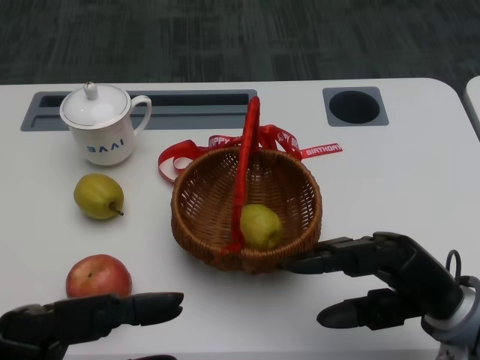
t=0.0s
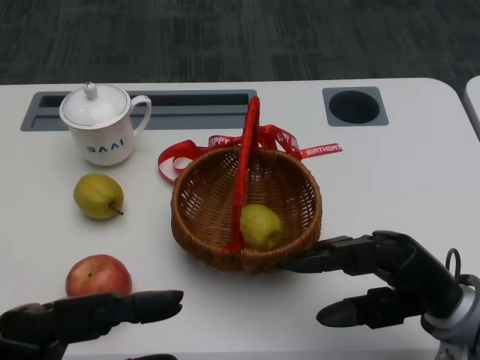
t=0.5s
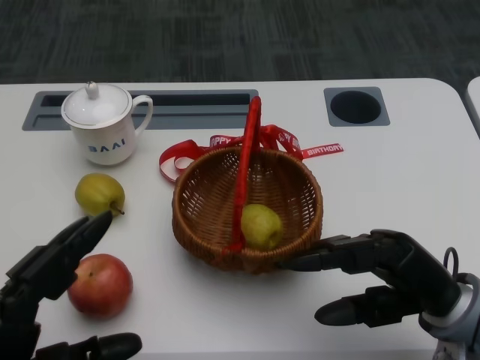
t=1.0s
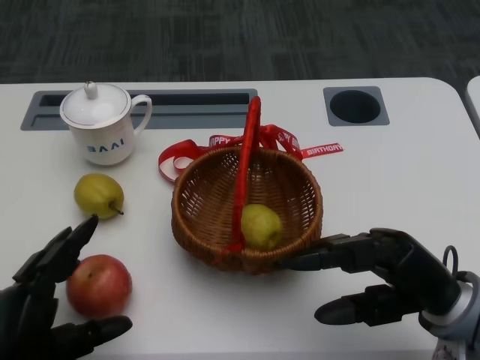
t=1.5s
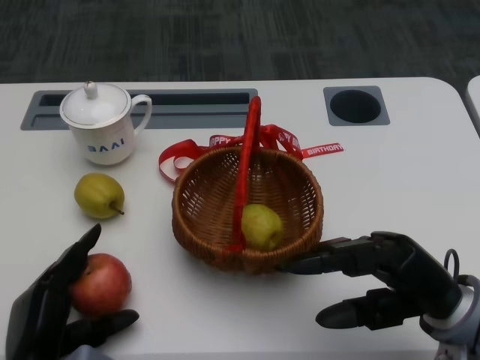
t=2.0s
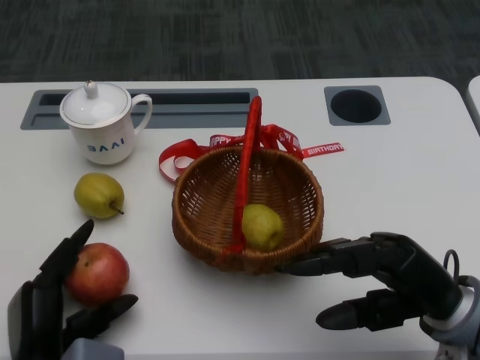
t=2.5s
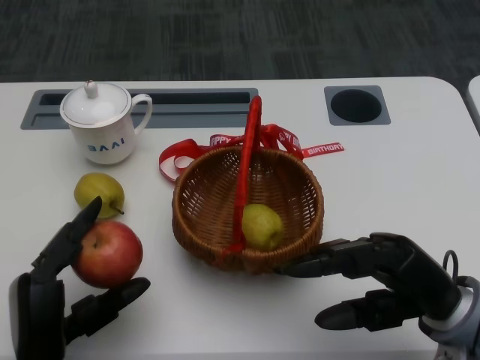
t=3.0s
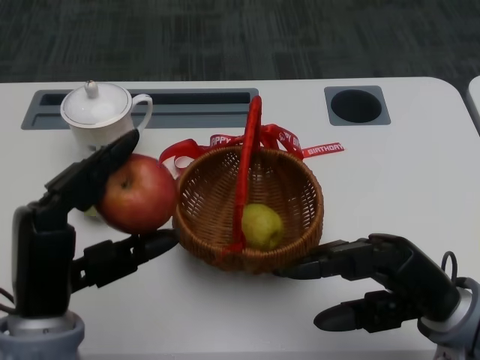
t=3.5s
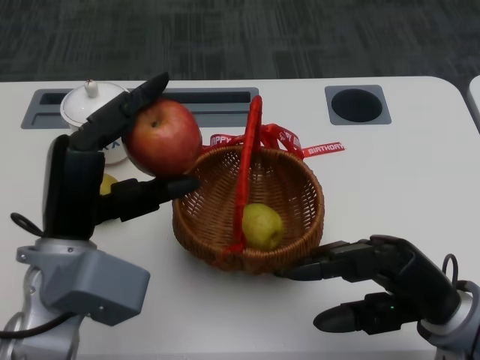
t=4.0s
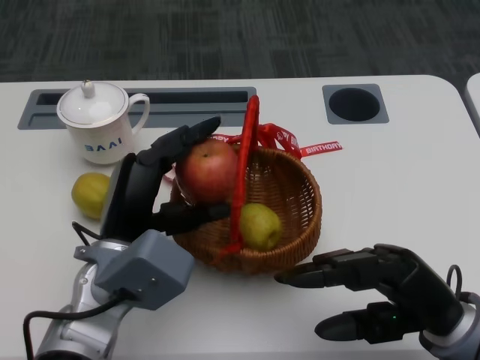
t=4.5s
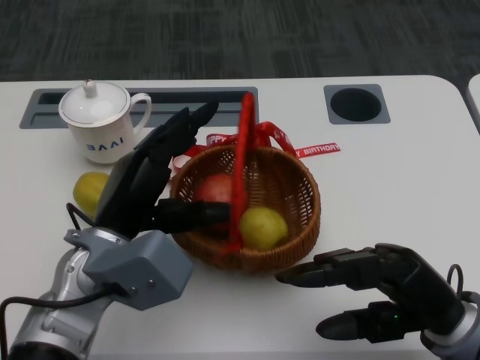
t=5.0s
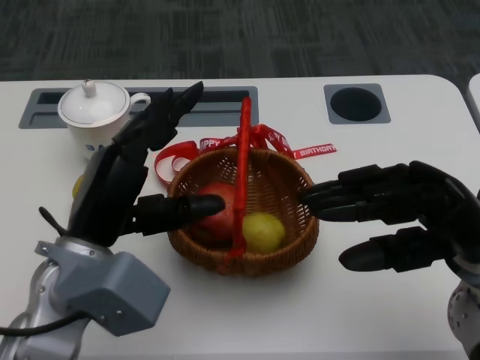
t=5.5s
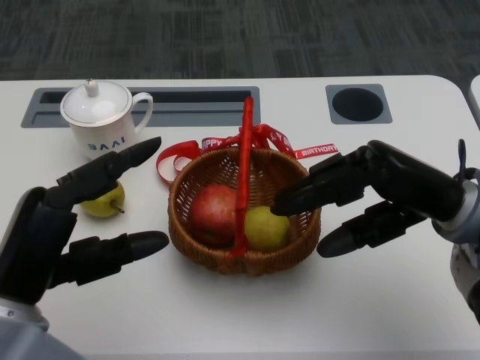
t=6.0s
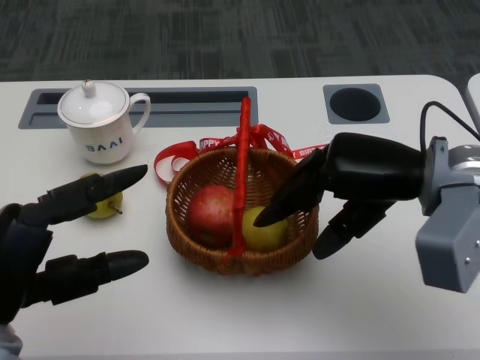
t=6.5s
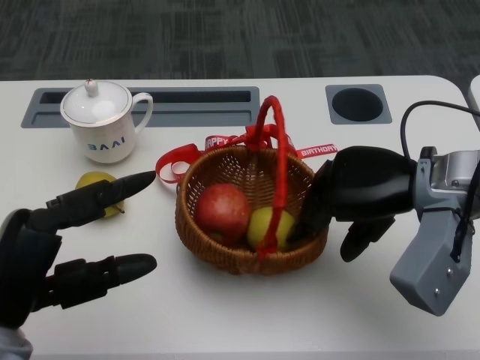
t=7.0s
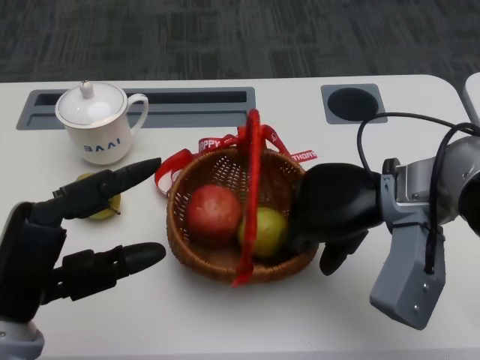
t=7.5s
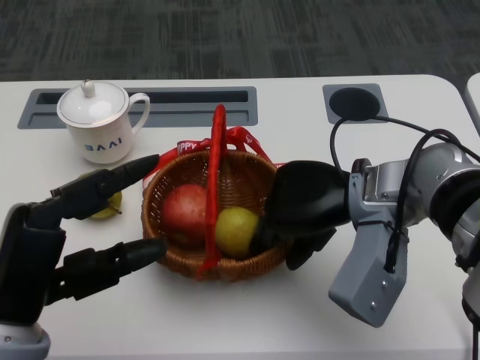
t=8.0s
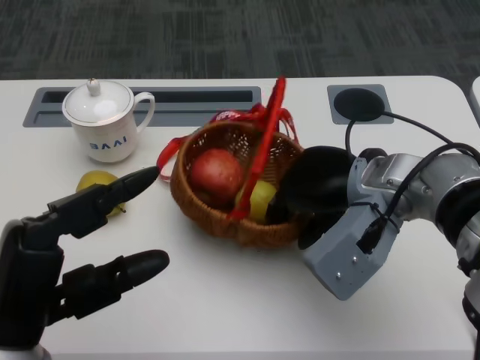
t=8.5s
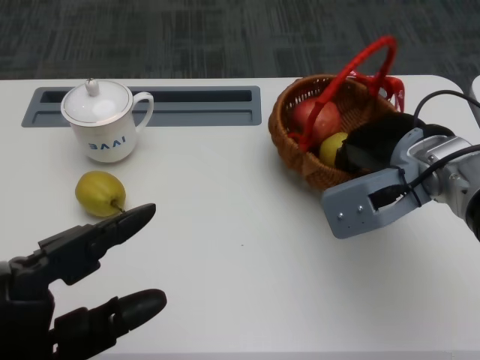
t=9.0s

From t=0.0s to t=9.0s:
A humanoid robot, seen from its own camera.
Step, from t=0.5s to t=2.0s: Grasp the apple with the left gripper.
Step, from t=2.5s to t=4.0s: Place the apple into the basket with the left gripper.
Step, from t=4.5s to t=6.0s: Grasp the basket with the right gripper.
Step, from t=6.5s to t=8.0s: Move the basket to the front of the table with the right gripper.
From t=2.0s to t=4.5s: The left hand moves upward, forward and to the right, roughly 15 cm.
From t=4.5s to t=7.0s: The right hand is displaced forward and upward by some 15 cm; the left hand goes roughly 15 cm backward and to the left.

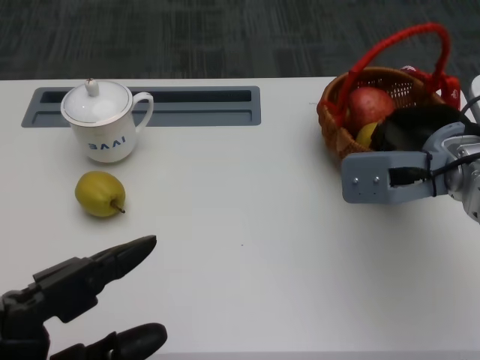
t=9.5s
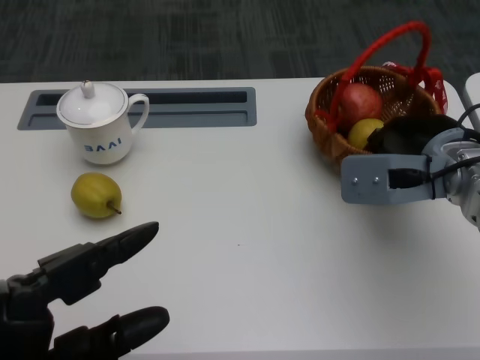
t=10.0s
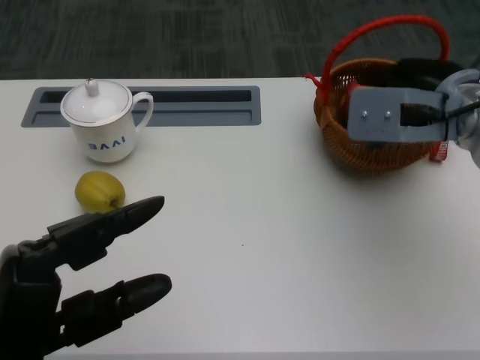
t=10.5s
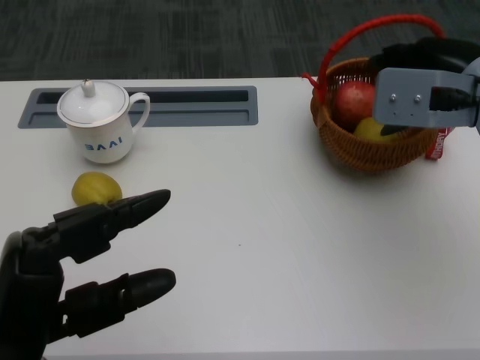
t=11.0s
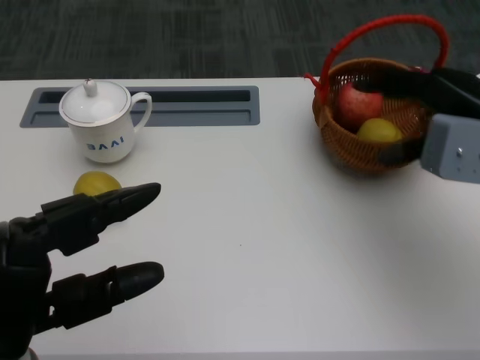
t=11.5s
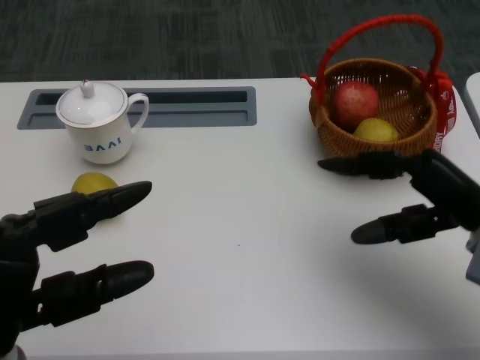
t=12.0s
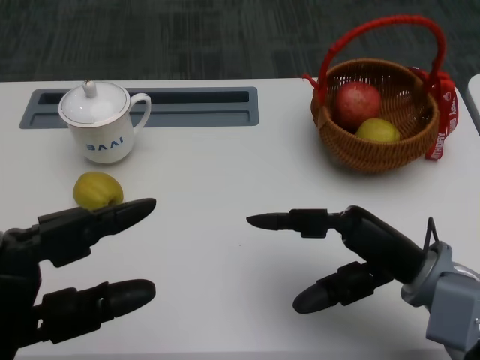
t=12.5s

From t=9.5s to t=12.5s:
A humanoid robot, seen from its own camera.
From t=9.5s to t=11.0s: The right hand goes approximately 5 cm upward.
From t=11.0s to t=12.5s: The right hand goes about 15 cm downward and backward.
